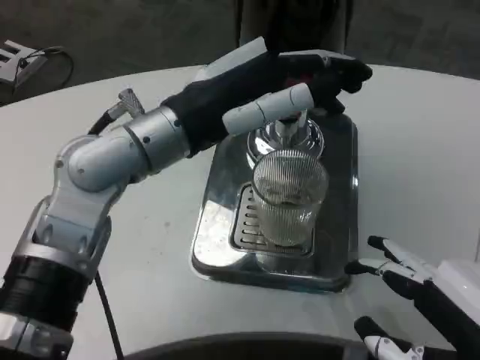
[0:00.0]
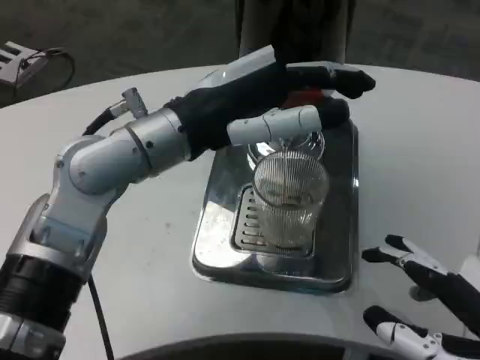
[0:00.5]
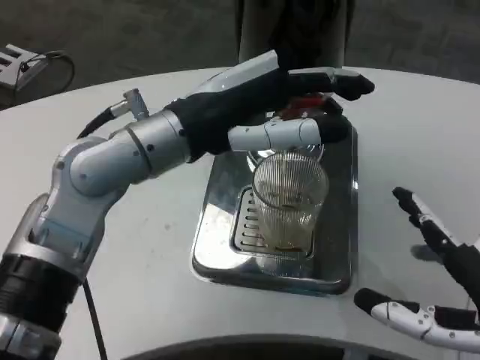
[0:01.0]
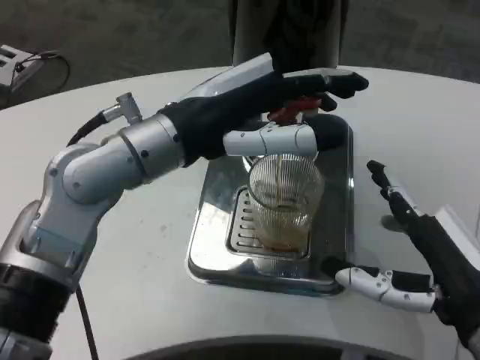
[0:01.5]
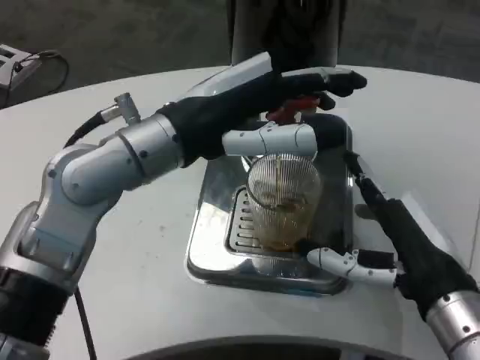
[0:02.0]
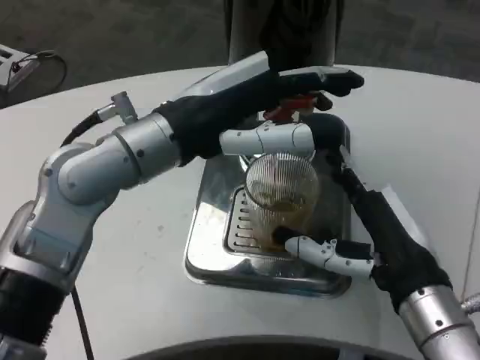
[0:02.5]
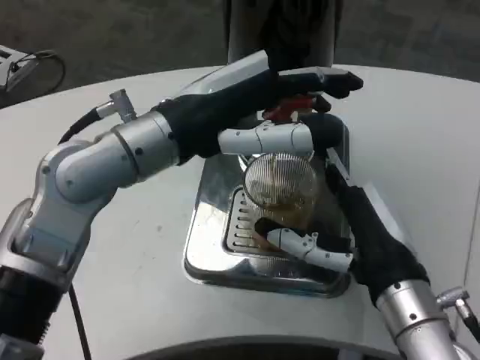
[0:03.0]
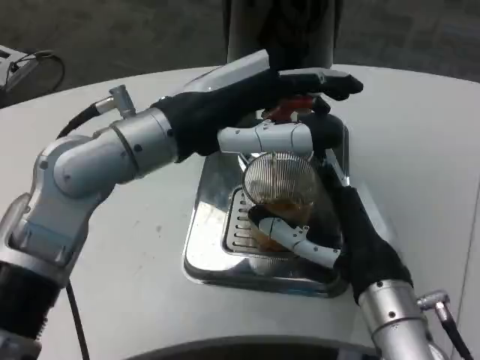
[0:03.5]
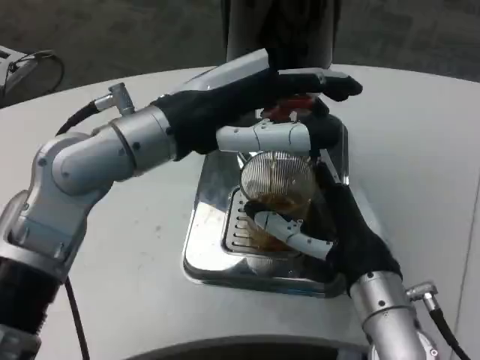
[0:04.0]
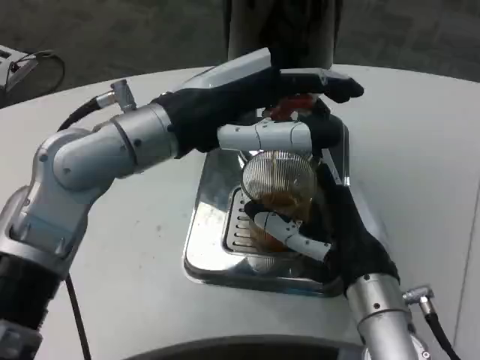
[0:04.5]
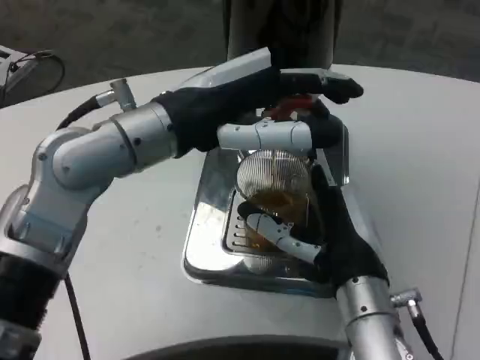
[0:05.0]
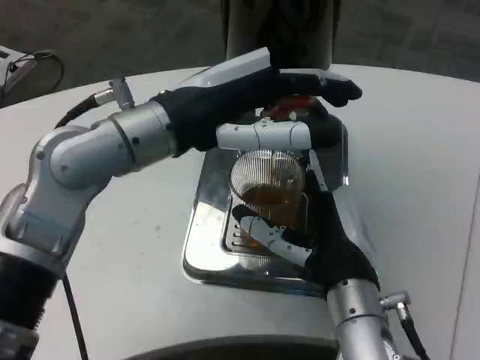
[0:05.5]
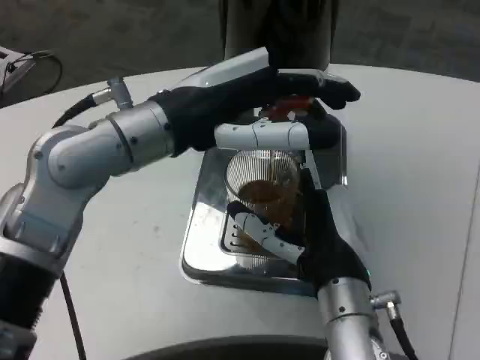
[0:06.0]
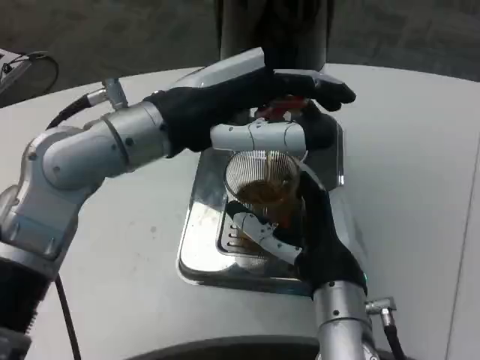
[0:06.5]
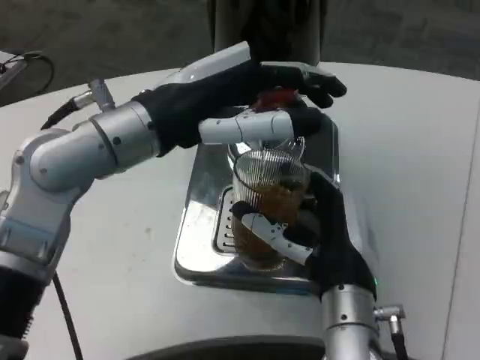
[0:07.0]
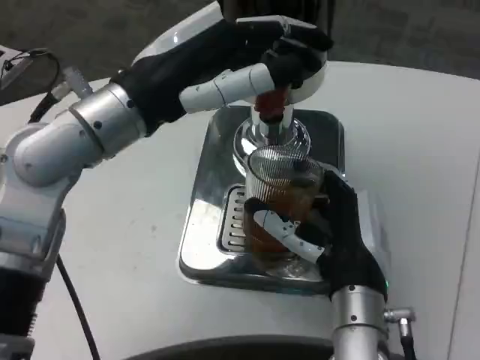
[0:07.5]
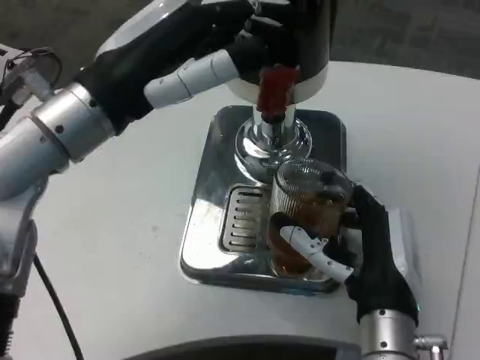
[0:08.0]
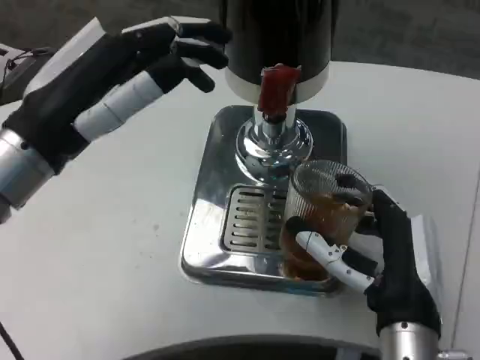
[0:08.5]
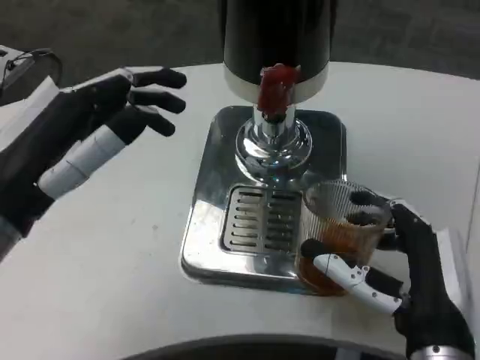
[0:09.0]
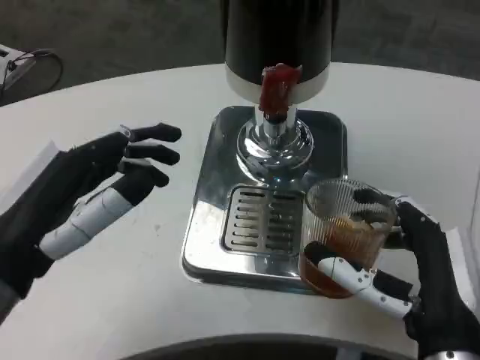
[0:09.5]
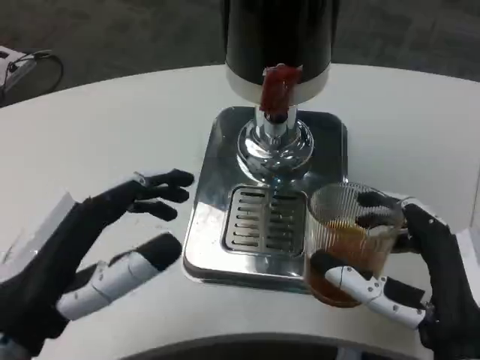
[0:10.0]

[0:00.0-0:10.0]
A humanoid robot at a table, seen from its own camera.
Task of the whole recording: Grasp the cup under the faucet to collect the drink, then remove the cup.
0:00.0 to 0:02.0: The right hand heads forward, covering roughly 10 cm.
0:02.0 to 0:04.0: The right hand goes some 5 cm to the left.
0:08.0 to 0:10.0: The left hand moves backward and downward, roughly 20 cm. Meanwhile the right hand goes roughly 10 cm backward and to the right.

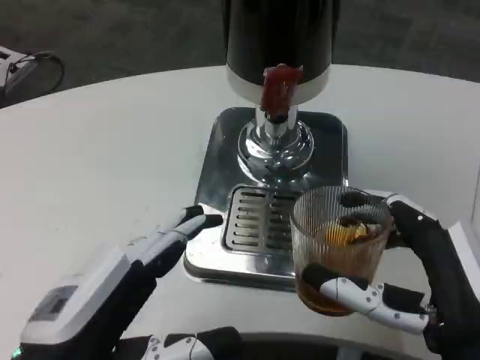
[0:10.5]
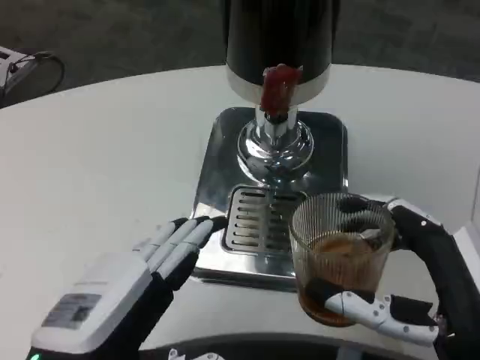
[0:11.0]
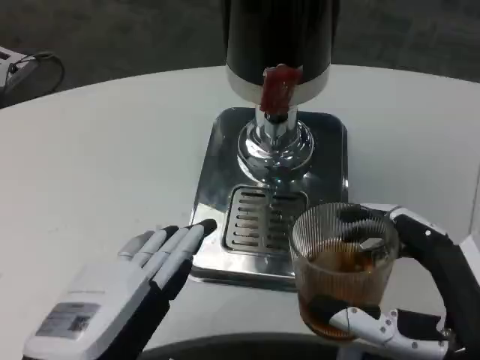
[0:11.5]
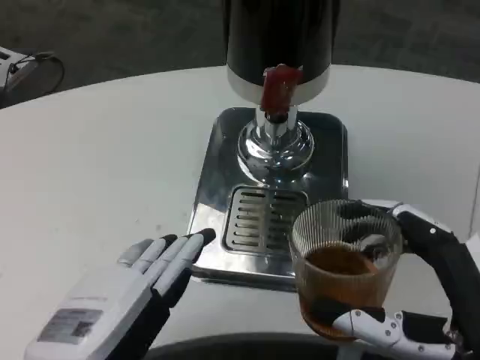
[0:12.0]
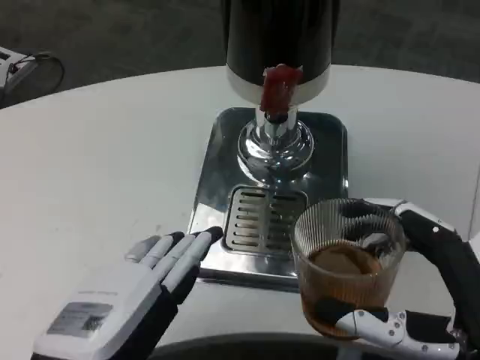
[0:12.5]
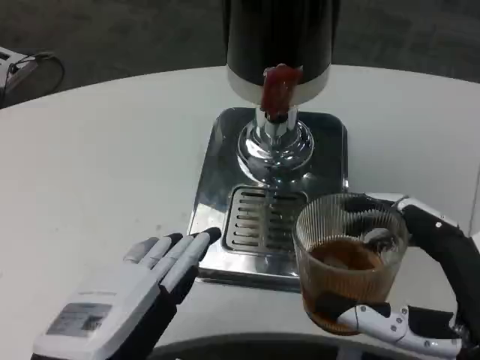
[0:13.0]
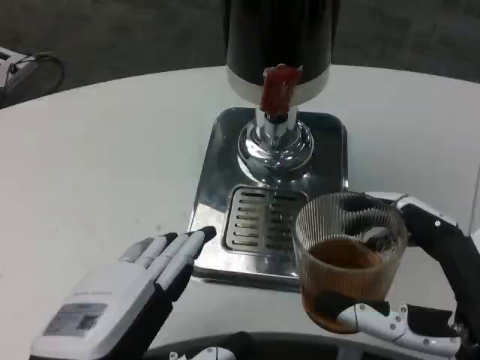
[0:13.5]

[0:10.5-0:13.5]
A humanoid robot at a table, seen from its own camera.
Task of the whole recording: Grasp the cup under the faucet to collect the drink, then remove the cup.
0:10.5 to 0:12.0: There are only small adjustments of the hands.
0:12.0 to 0:13.5: Both hands stay put.

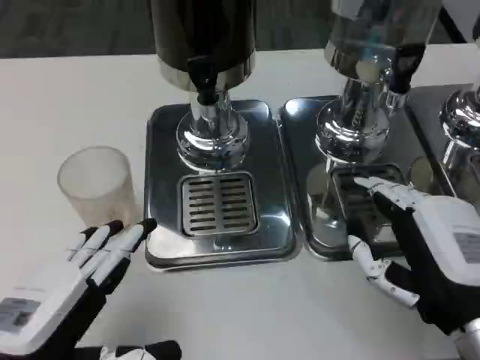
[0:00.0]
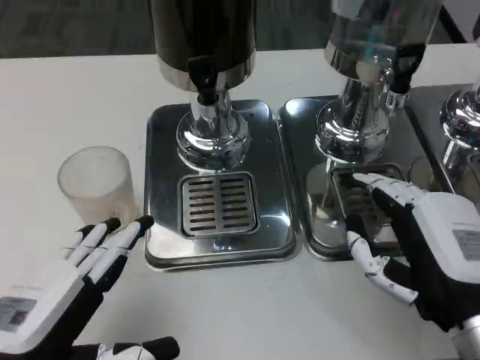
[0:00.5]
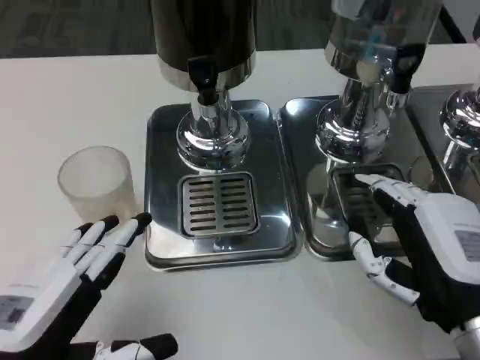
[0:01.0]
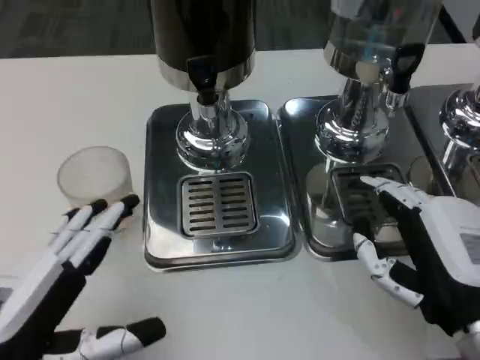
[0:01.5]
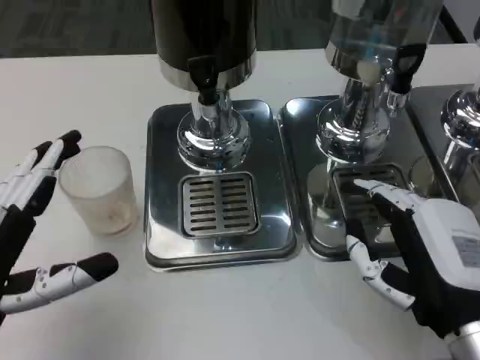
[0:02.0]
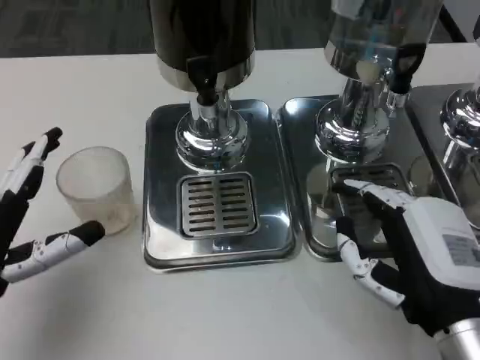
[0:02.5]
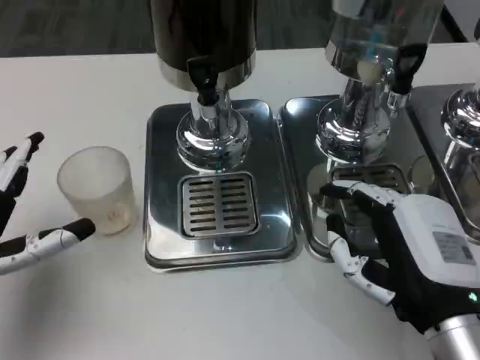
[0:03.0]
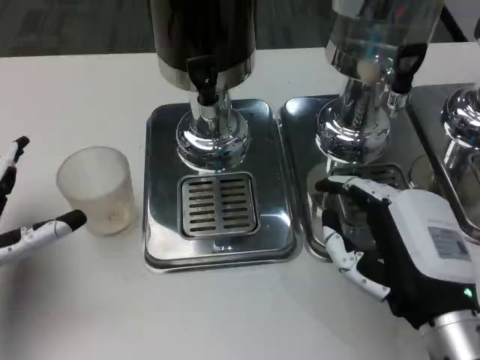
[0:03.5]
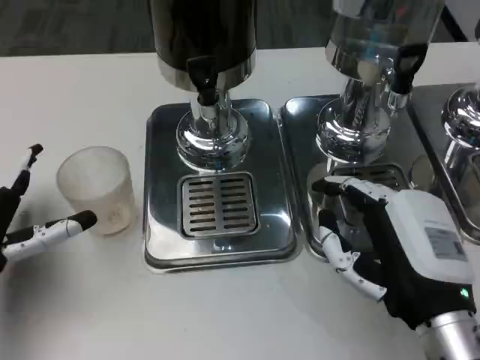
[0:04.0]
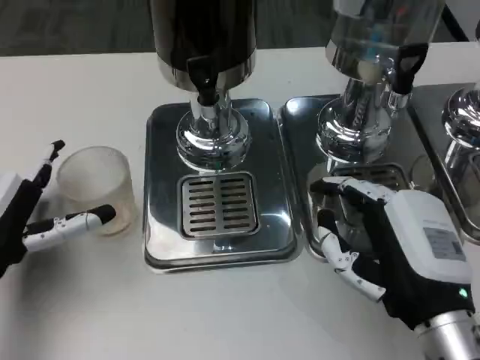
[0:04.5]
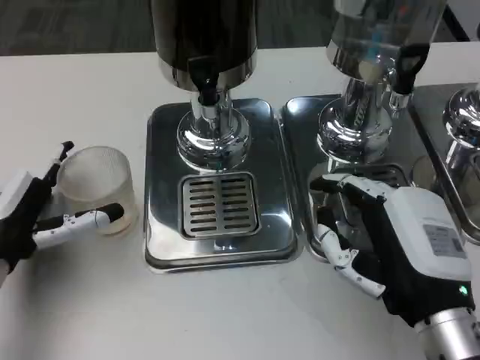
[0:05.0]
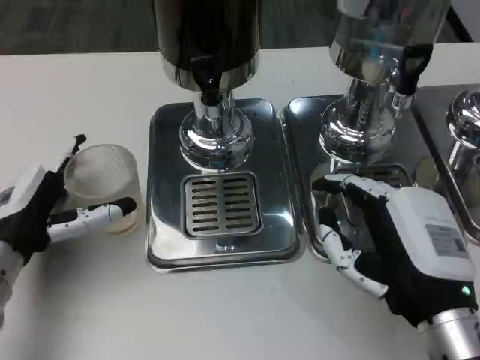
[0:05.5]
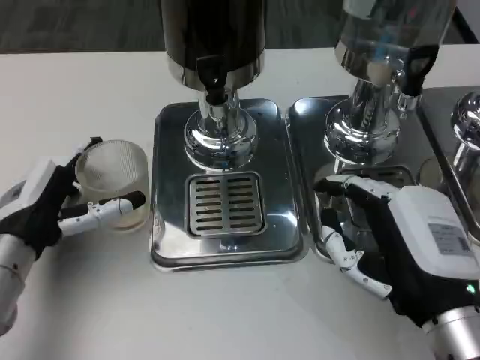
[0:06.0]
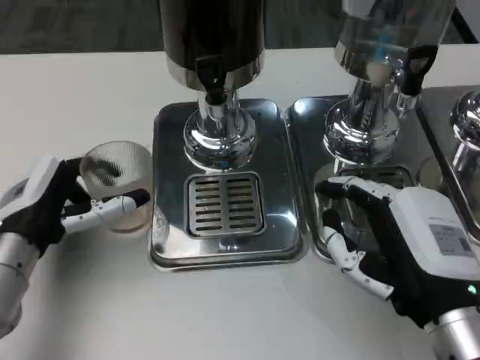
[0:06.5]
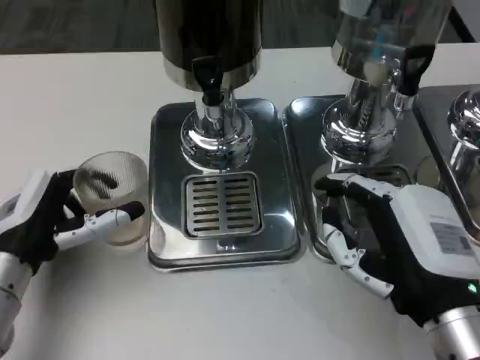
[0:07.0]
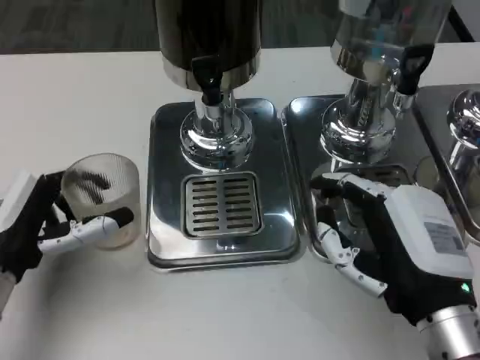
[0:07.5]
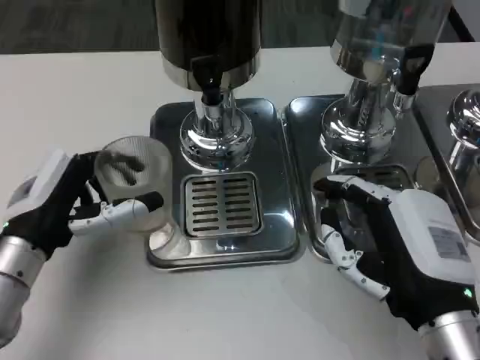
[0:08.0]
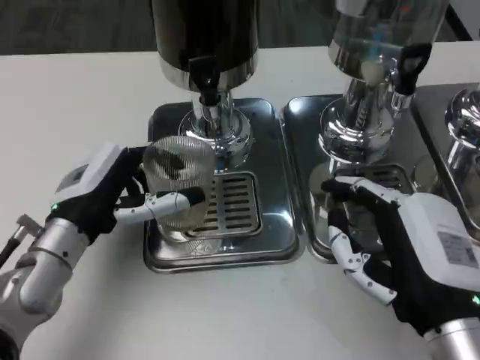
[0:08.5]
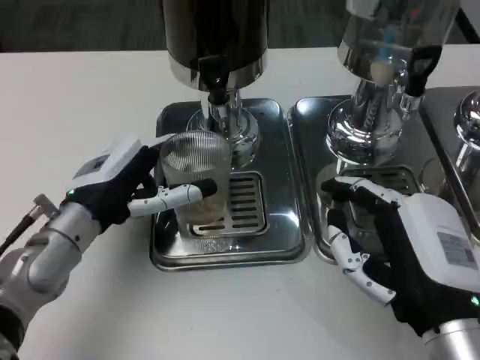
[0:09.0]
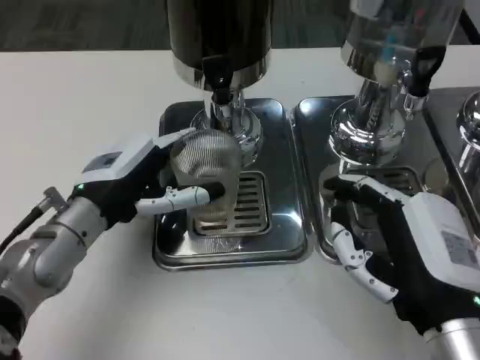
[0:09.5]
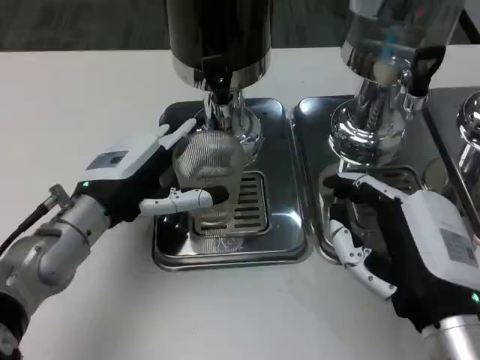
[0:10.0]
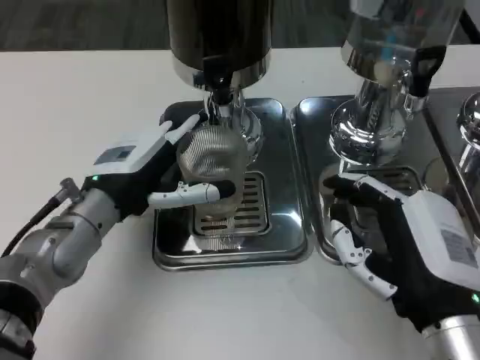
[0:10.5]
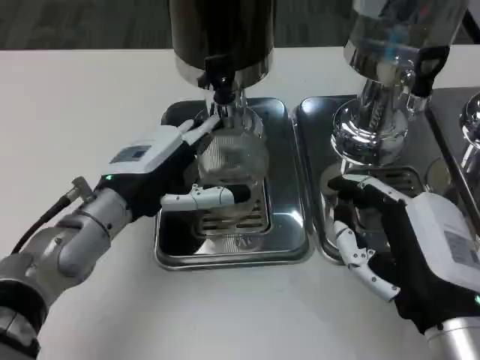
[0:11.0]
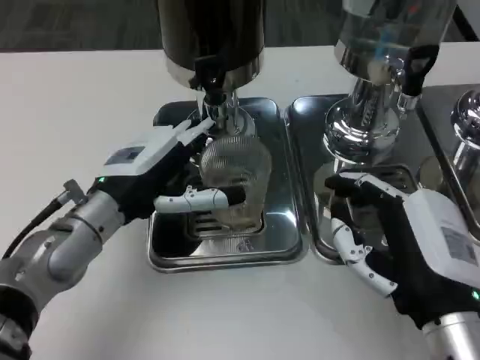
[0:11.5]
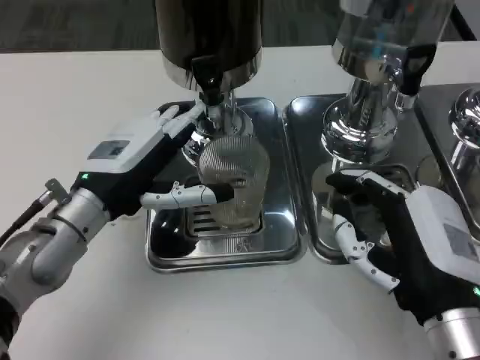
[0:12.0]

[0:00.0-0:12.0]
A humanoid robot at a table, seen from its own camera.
Task of the whole recording: Grasp the cup under the faucet to collect the drink, then remove the cup.
0:00.0 to 0:02.0: The hands make only small movements.
0:02.0 to 0:04.0: The left hand shifts about 10 cm forward.
0:04.0 to 0:06.0: The left hand shifts by roughly 5 cm.
0:08.0 to 0:10.0: The left hand ends up approximately 5 cm from where it was.

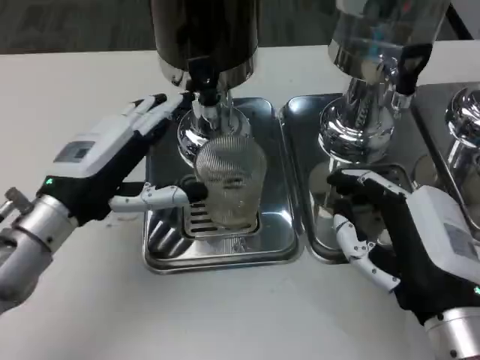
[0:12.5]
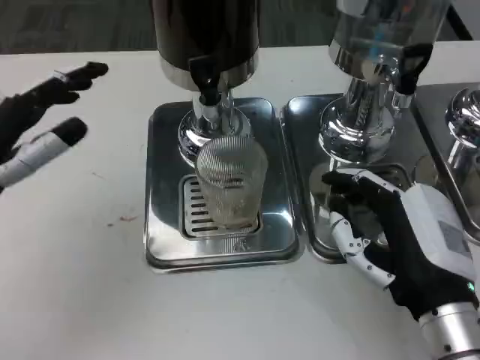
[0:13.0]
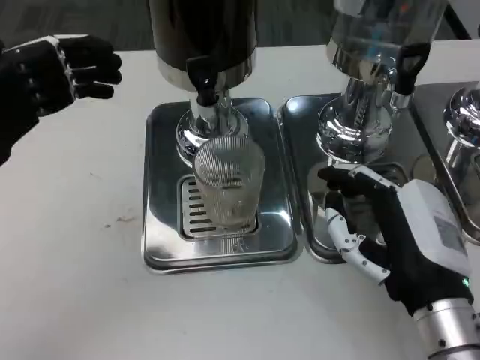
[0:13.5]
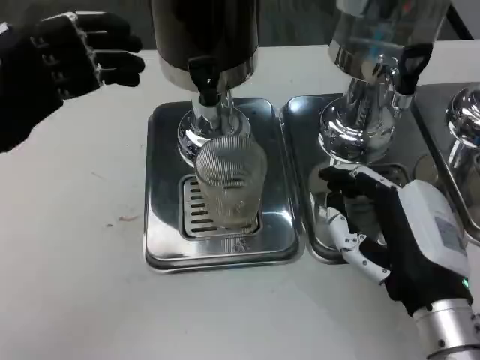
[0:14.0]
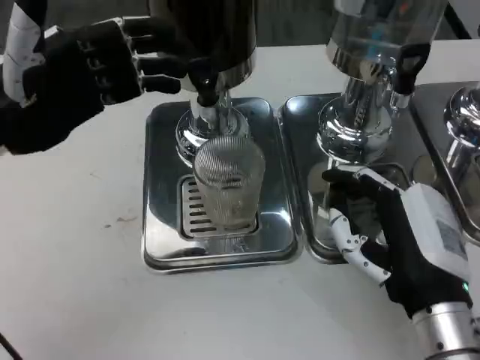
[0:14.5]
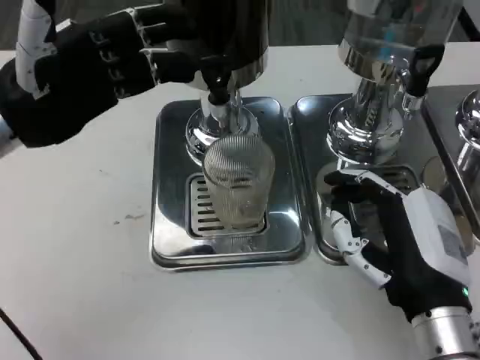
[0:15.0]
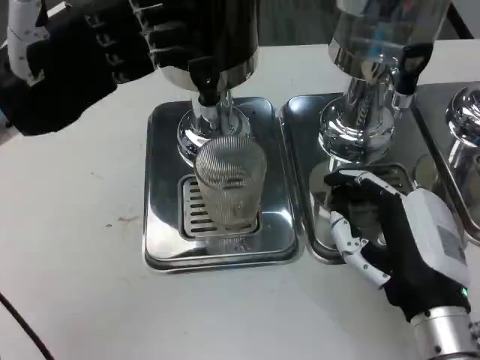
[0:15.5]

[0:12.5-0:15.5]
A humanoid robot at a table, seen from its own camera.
Task of the whole recording: Grasp the cup under the faucet to collect the drink, then remove the cup.
0:12.5 to 0:14.0: The left hand shifts some 10 cm upward and to the left.
0:14.0 to 0:15.5: There are only small adjustments of the hands.
